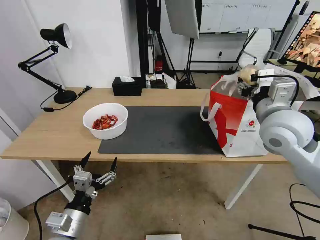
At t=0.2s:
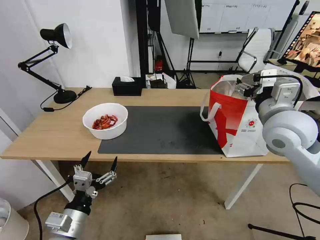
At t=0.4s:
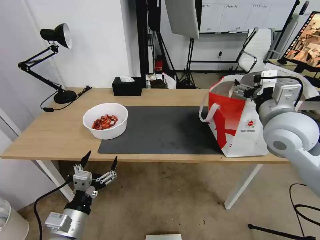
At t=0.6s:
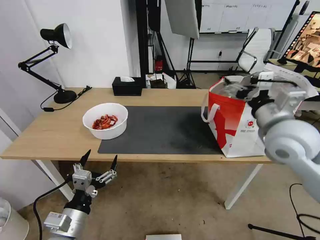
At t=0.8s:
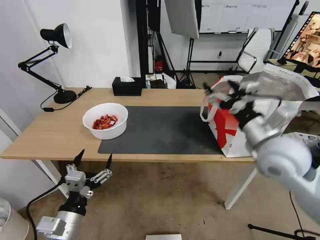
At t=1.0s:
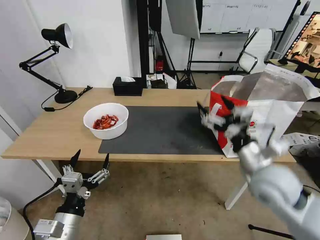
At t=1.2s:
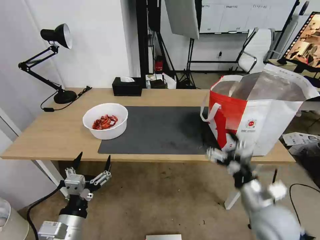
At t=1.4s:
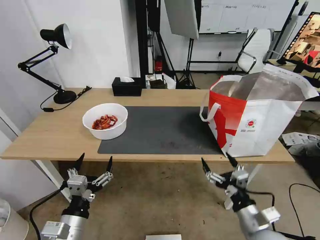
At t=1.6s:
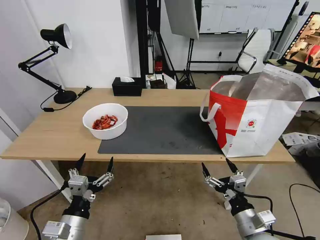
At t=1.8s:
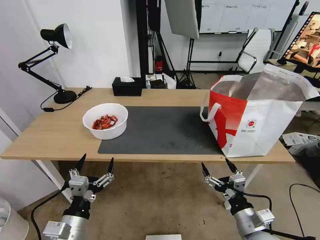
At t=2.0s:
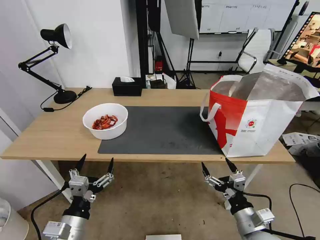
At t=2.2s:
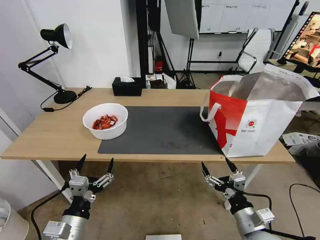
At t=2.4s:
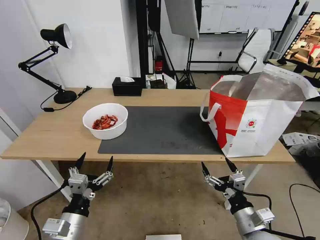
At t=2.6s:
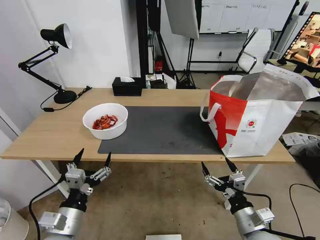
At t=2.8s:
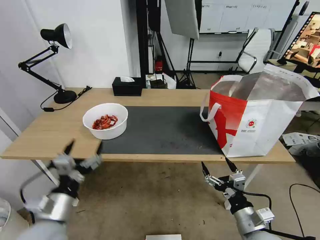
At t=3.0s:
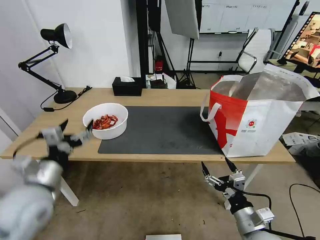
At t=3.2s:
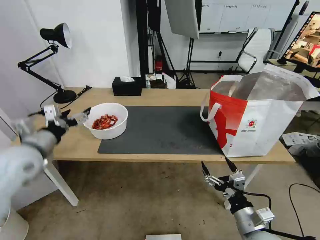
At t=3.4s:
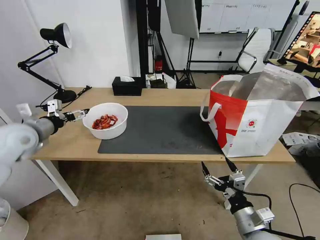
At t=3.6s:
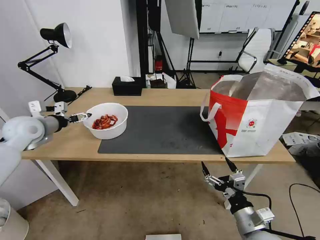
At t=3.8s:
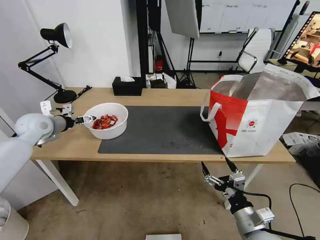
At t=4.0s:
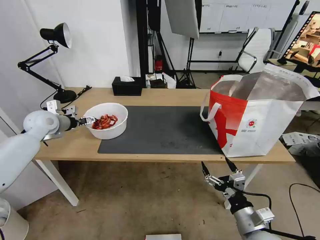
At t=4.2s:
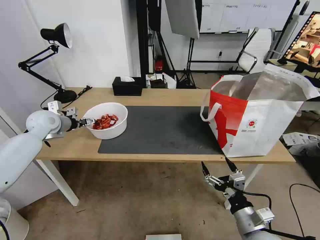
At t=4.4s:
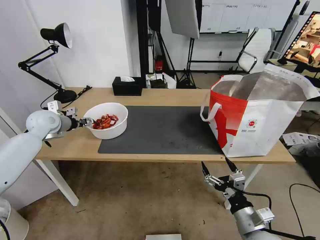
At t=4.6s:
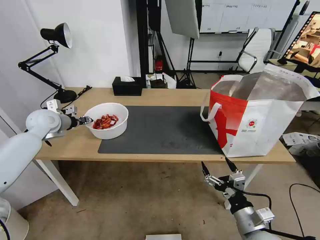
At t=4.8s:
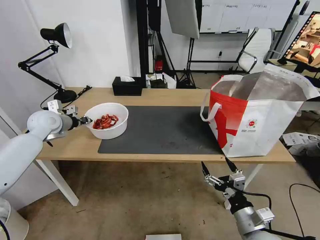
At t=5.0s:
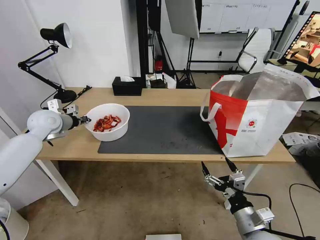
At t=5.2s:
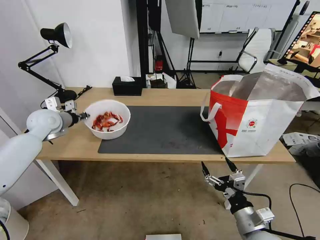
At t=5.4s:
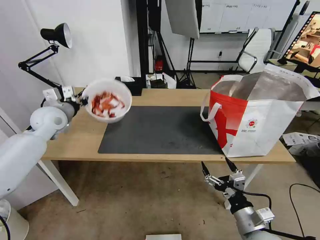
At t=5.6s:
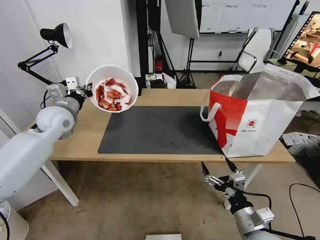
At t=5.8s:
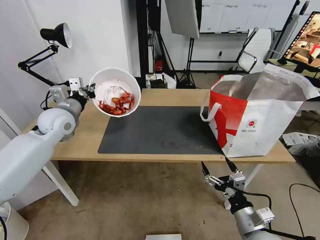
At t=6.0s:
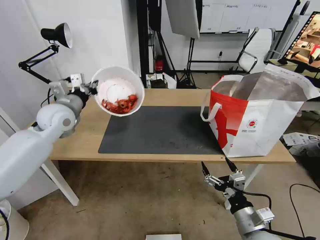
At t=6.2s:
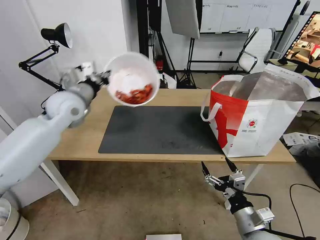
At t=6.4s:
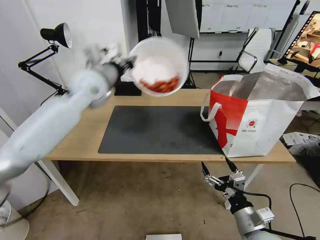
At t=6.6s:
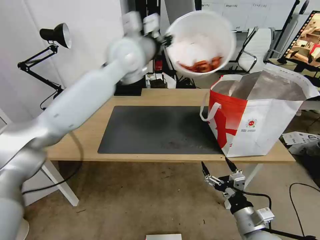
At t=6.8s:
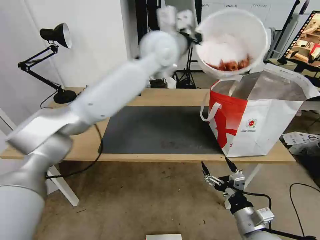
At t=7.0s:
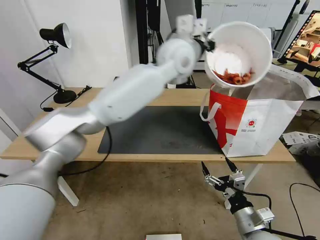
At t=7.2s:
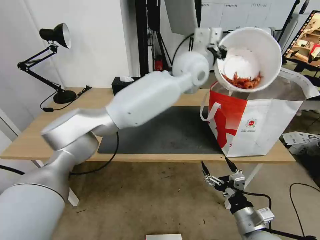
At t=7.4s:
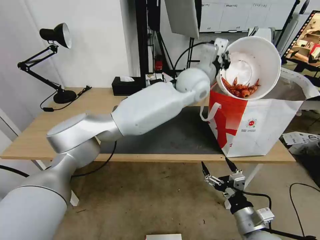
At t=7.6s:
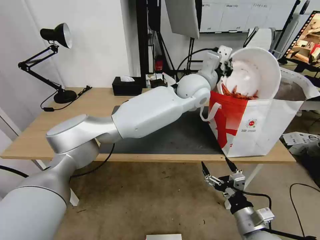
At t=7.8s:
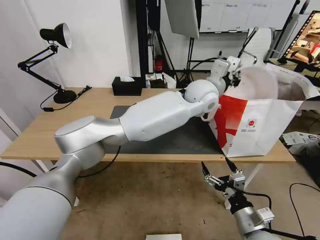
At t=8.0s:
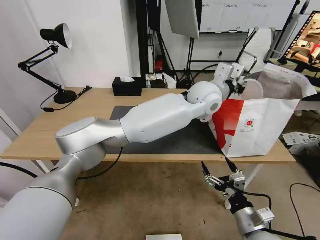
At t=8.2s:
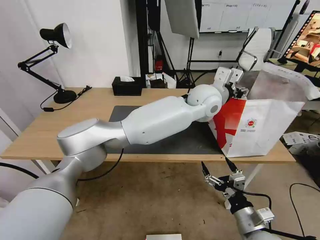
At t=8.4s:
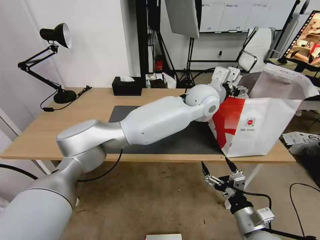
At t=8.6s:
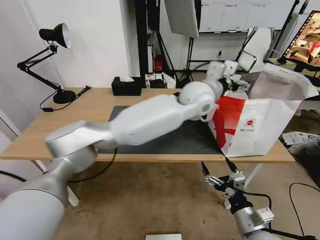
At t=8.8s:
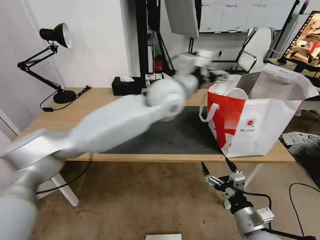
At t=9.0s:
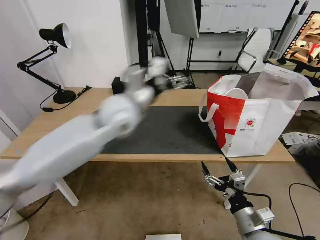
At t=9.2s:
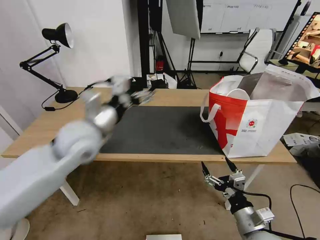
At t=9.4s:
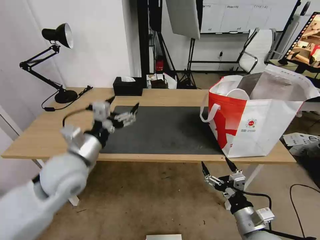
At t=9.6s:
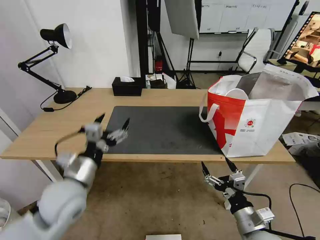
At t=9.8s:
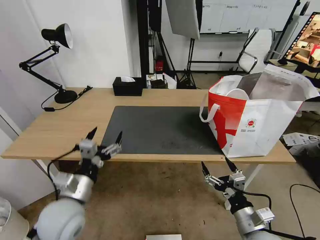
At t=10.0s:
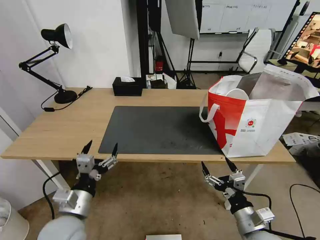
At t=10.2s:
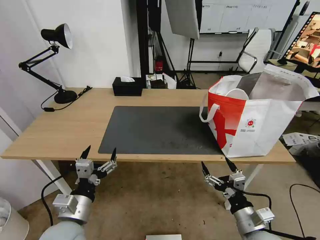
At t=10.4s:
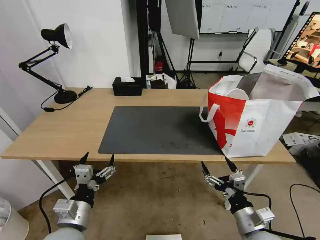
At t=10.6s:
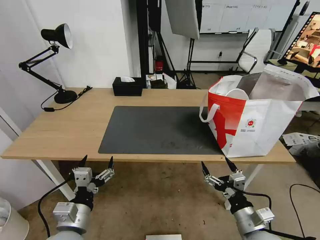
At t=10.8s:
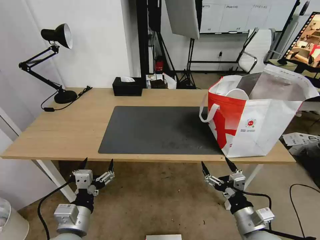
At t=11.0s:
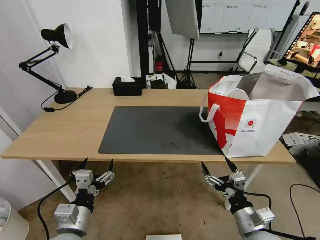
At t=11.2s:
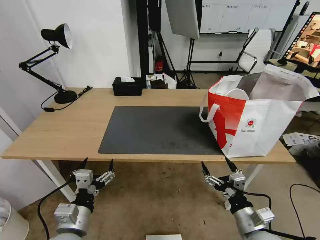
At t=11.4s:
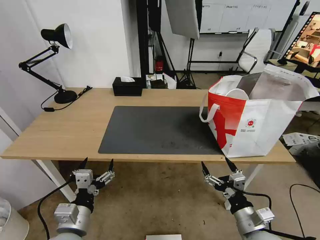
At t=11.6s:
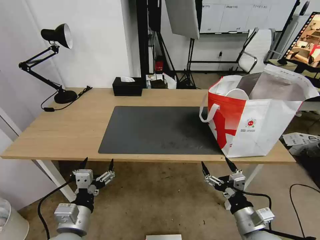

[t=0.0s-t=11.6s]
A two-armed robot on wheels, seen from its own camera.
Task of the whole recording: Pick up the trash from the table and place it into the takeout bag.
t=0.0s to t=1.4s: The right gripper shifts approximately 30 cm downward and backward.
t=1.4s to t=2.8s: The left gripper changes place by roughly 5 cm.
t=2.8s to t=4.4s: The left gripper goes roughly 35 cm forward and to the left, and closes up.
t=4.4s to t=5.8s: The left gripper is displaced to the right by approximately 10 cm, and closes up.
t=5.8s to t=7.2s: The left gripper heads to the right, covering about 40 cm.
t=7.2s to t=8.8s: The left gripper goes roughly 10 cm to the left and backward, and opens up.
t=8.8s to t=10.2s: The left gripper moves backward, to the left and downward, some 40 cm.
t=10.2s to t=11.6s: The grippers move only a little.

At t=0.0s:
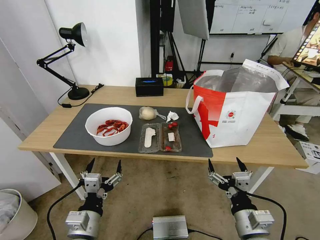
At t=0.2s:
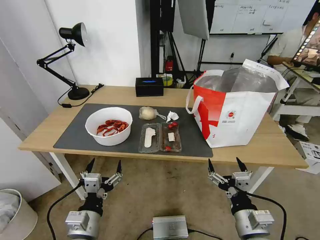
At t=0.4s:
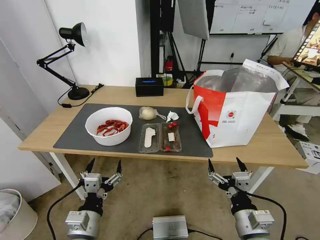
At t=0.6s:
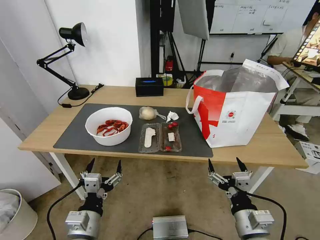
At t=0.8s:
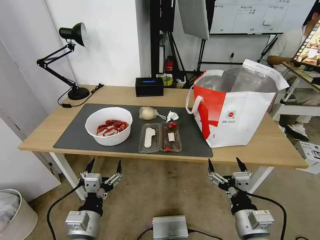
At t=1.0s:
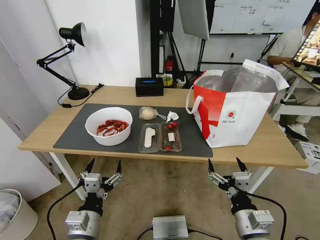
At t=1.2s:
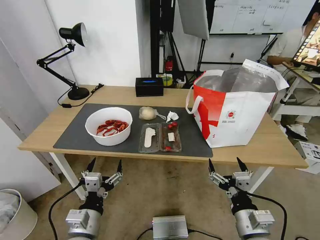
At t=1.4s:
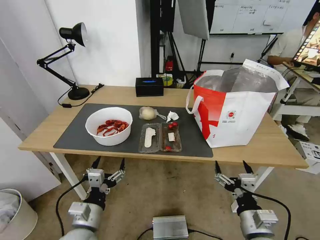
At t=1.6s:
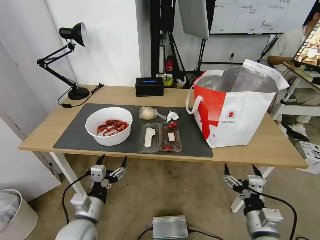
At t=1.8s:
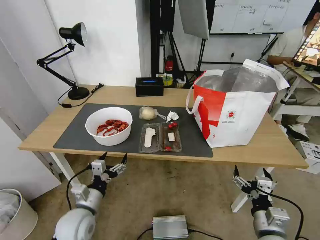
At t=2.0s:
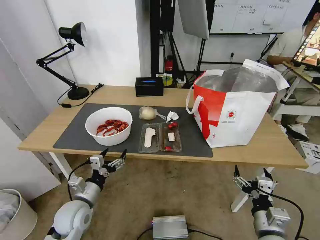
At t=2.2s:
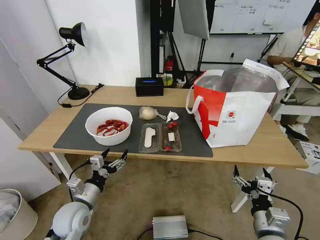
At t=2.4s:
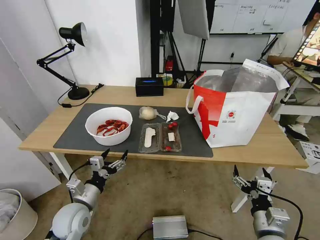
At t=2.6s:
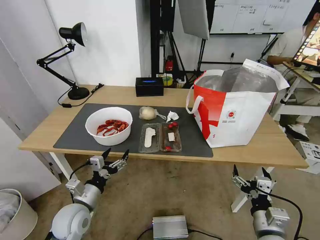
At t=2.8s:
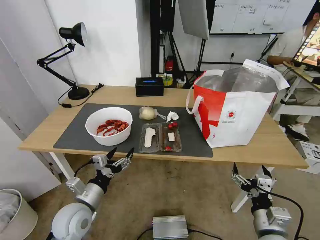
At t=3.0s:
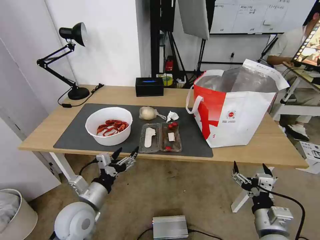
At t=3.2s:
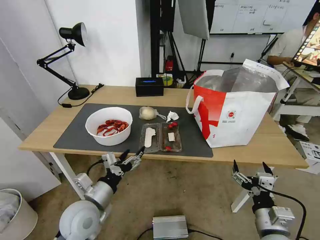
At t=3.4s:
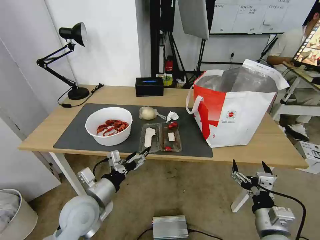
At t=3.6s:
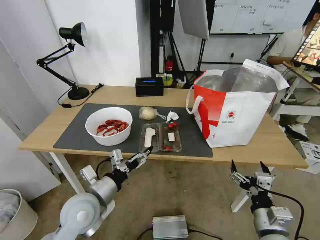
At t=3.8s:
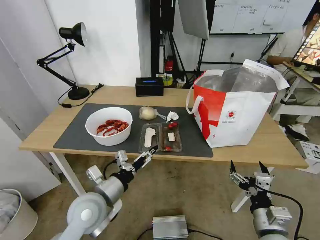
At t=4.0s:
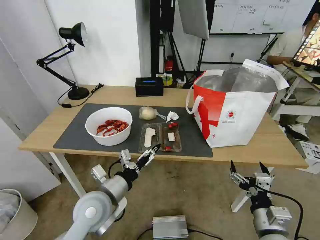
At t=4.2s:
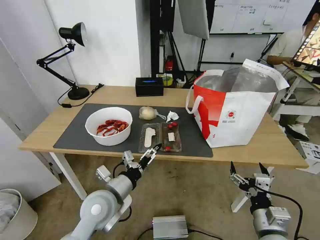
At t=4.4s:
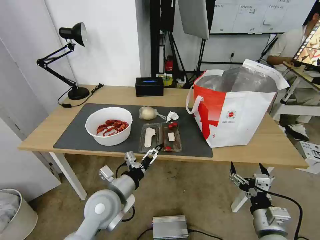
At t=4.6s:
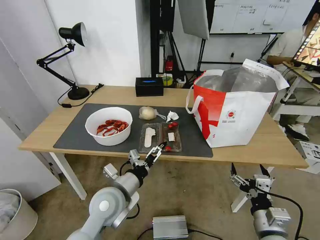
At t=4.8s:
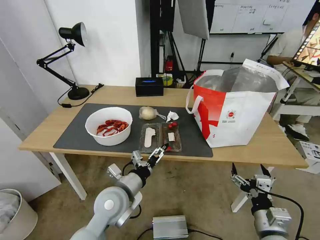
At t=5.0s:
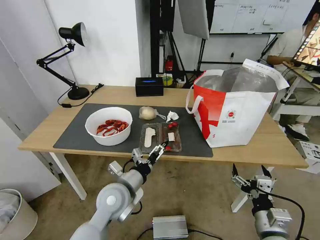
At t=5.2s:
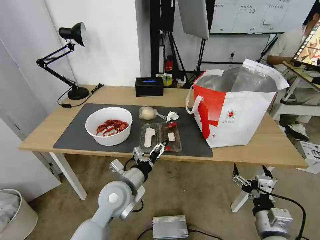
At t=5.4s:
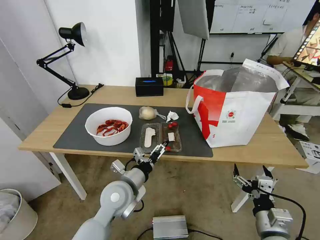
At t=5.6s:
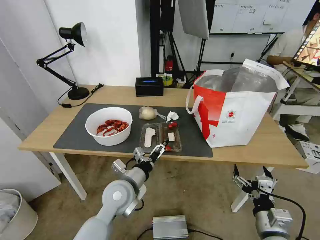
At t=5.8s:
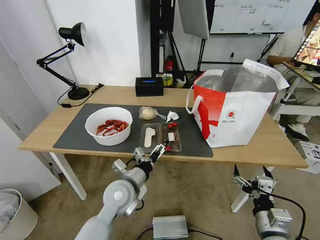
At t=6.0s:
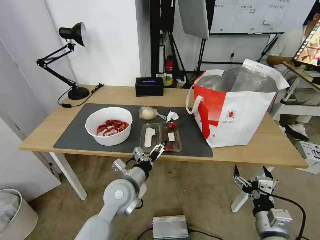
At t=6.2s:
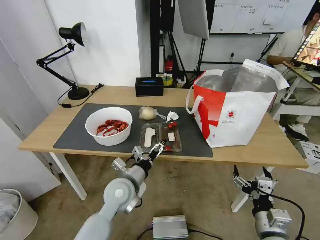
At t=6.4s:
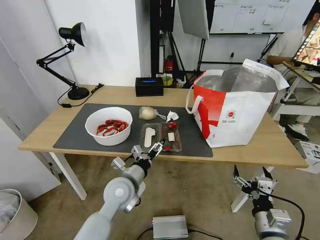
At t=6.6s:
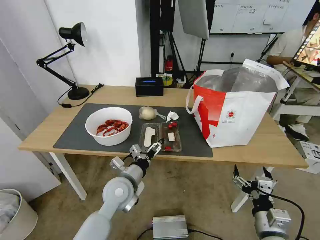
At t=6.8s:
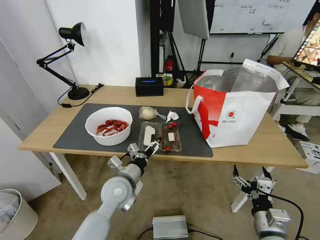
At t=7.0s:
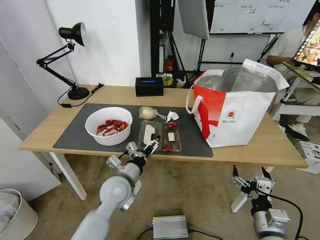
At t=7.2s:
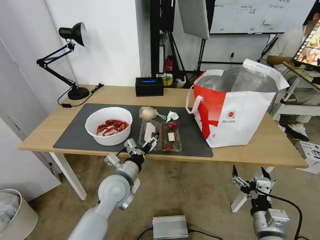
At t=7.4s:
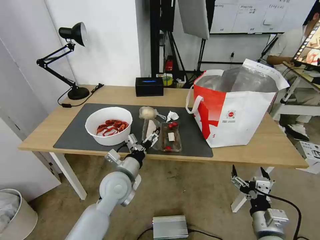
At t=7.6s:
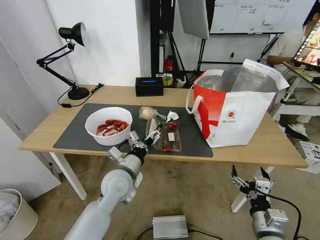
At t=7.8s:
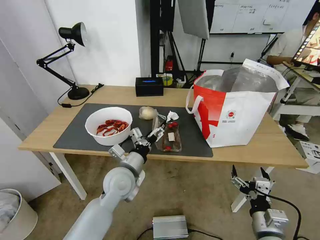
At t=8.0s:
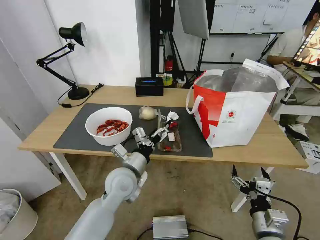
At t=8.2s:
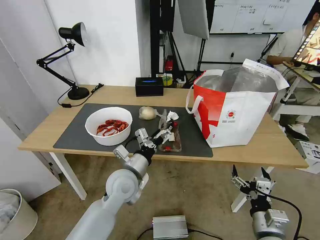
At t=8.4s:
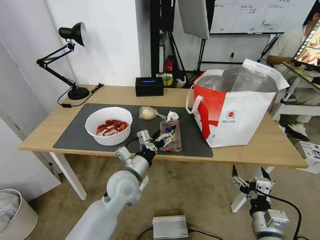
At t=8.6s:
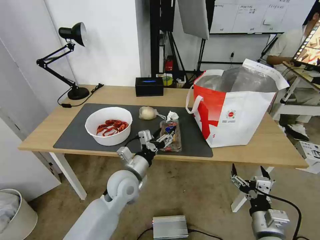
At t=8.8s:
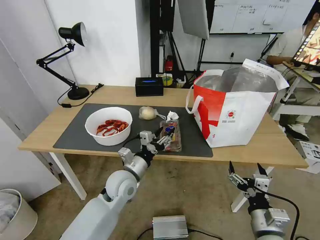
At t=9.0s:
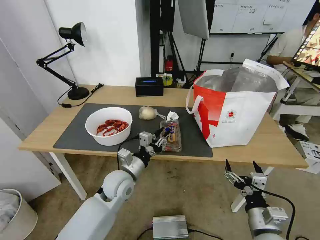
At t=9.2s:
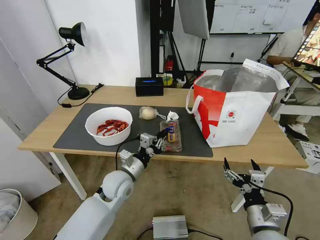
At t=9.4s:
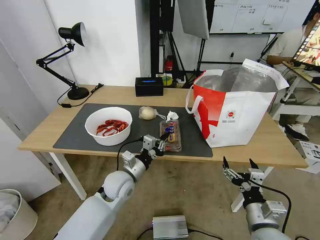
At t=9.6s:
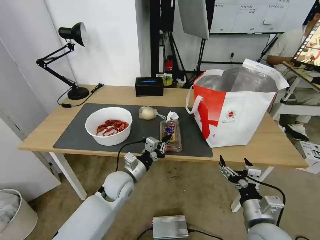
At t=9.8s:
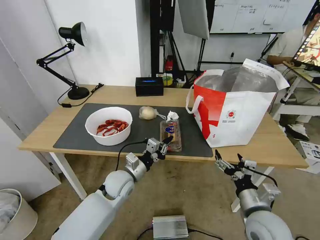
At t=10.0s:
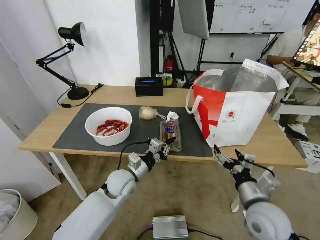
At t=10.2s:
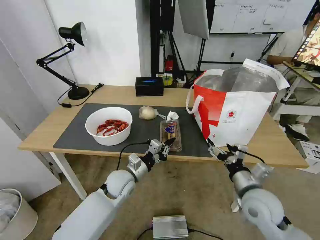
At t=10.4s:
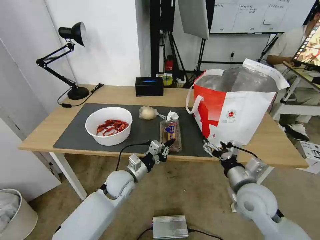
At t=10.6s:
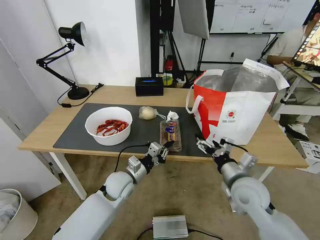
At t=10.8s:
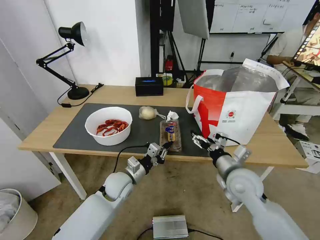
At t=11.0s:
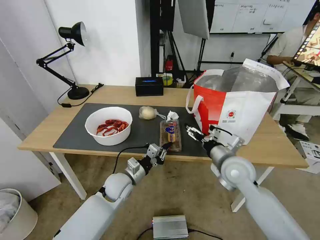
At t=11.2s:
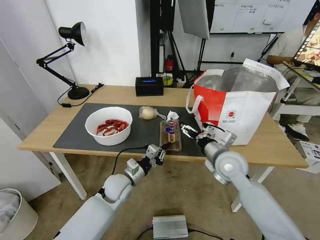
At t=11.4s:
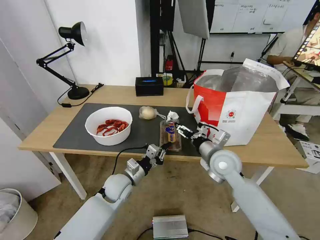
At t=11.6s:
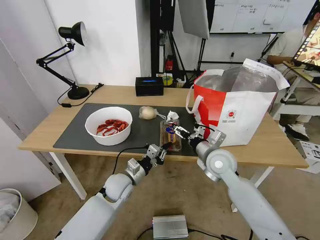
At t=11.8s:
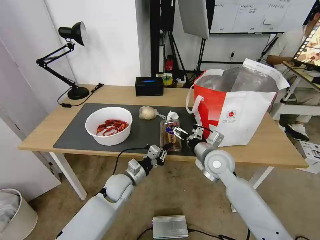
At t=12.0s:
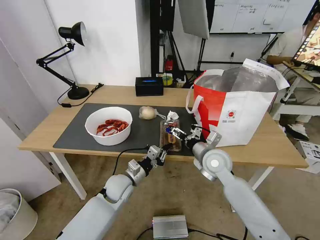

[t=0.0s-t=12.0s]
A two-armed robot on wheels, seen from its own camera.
Task of the whole recording: Pick up the trash from the table and place it into the takeout bag.
t=3.0s to t=4.4s: The left gripper moves to the right, approximately 5 cm.
t=4.4s to t=6.0s: The left gripper shifts by approximately 5 cm.
t=6.0s to t=7.6s: The grippers move only a little.
t=7.6s to t=9.0s: The left gripper closes up.
t=9.0s to t=10.4s: The right gripper heads forward, covering about 10 cm, while the left gripper closes its fingers.
t=10.4s to t=12.0s: The right gripper shifts about 15 cm forward and to the left.
